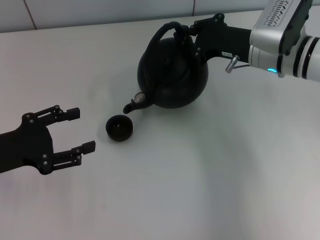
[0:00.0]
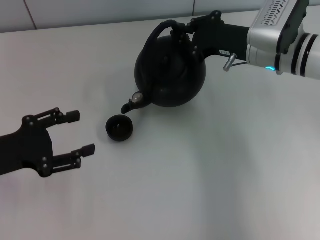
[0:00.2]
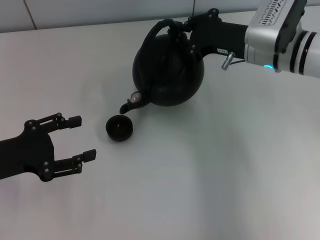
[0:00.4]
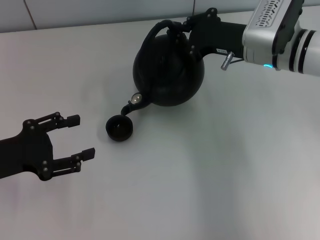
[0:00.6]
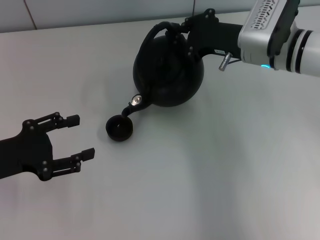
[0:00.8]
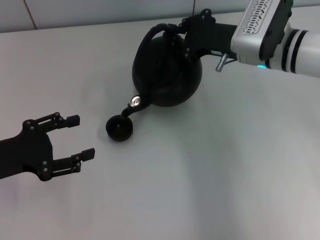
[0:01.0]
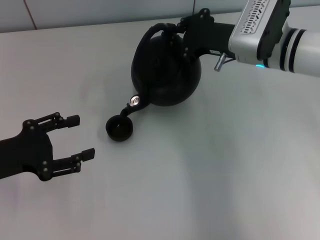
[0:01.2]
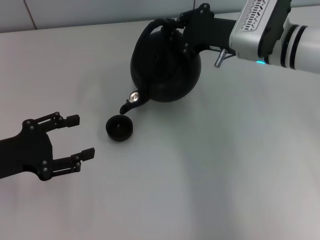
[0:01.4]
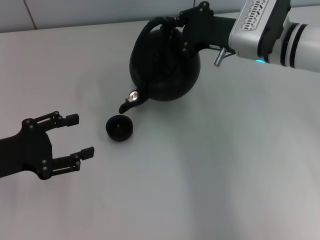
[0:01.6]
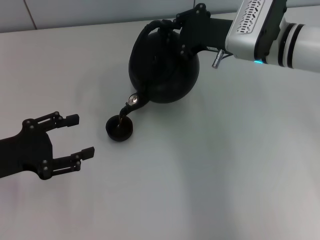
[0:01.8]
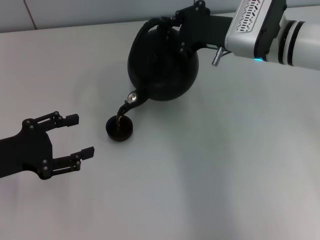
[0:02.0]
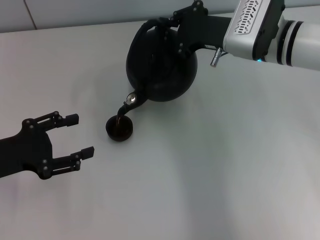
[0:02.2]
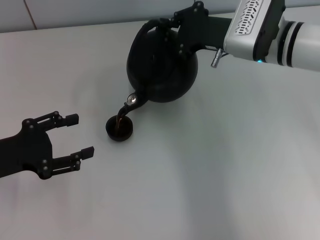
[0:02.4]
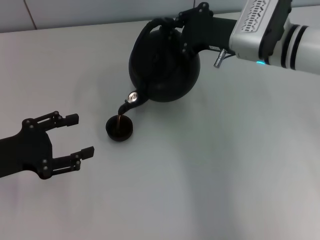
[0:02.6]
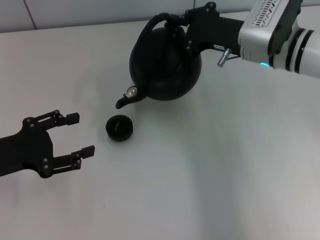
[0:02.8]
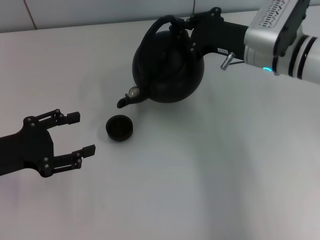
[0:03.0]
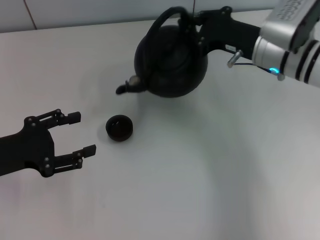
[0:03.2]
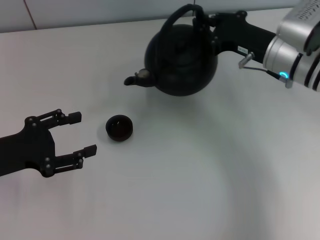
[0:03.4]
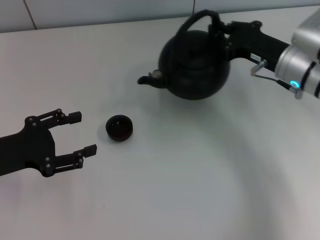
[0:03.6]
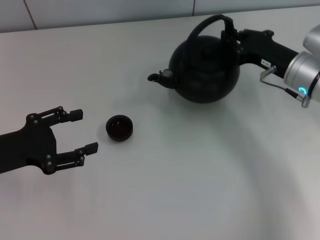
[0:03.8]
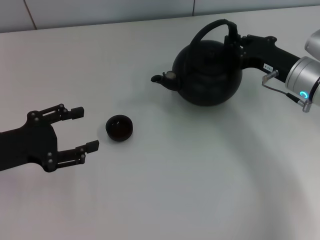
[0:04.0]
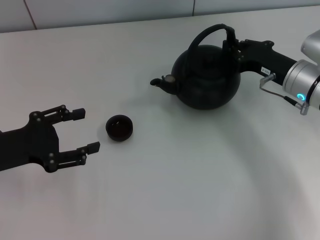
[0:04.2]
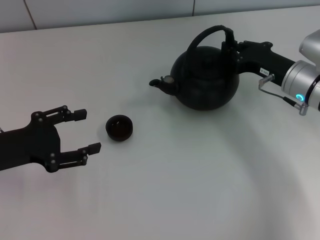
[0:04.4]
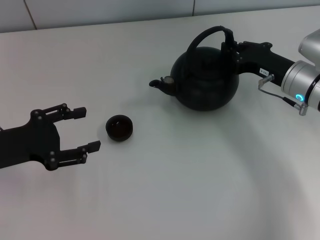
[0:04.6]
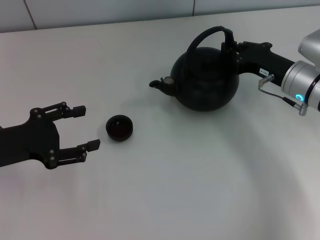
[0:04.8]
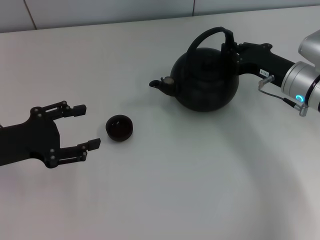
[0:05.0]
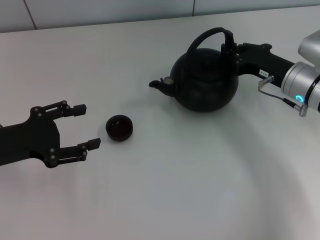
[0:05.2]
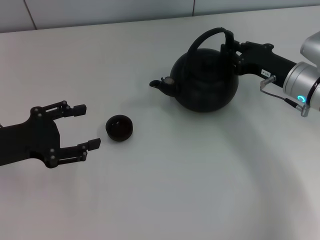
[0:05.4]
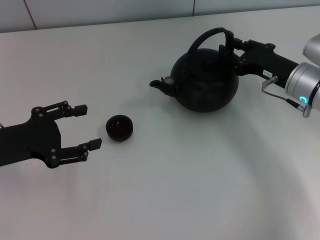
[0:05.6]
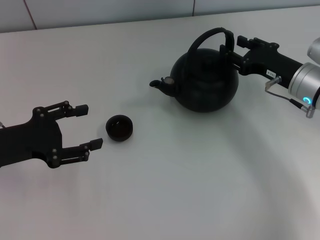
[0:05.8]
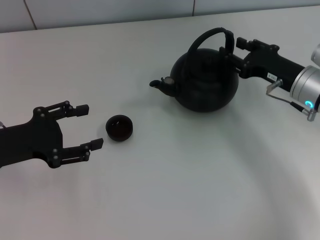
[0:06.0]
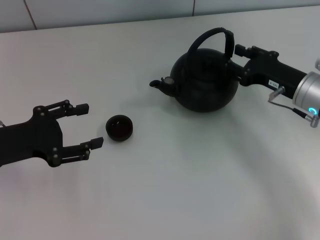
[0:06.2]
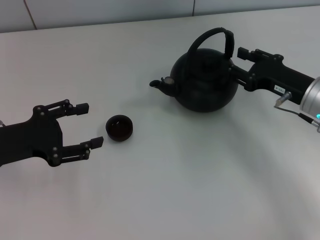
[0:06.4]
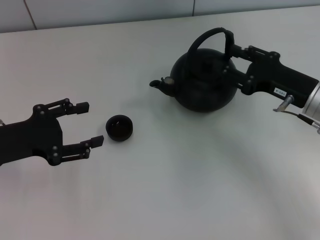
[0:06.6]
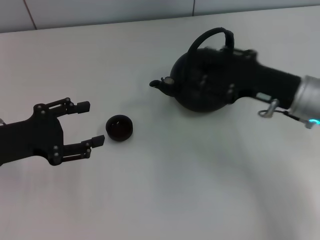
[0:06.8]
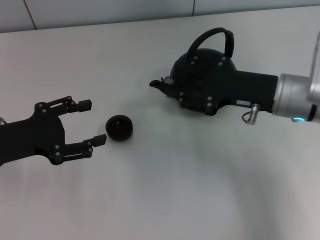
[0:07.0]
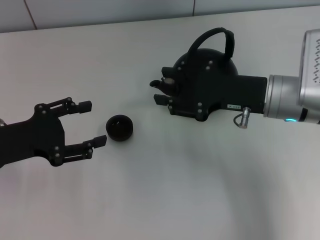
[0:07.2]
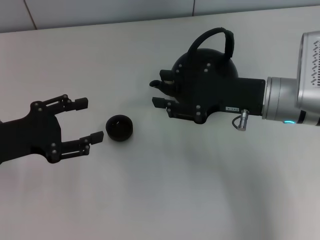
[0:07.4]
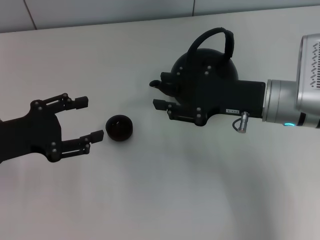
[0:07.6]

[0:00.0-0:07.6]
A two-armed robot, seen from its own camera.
Task of the whole recording: Grasp the handle of the teapot with one hand and pour tea into the teacup.
Step, 0:02.8 to 0:06.8: Put down the teapot with the right gripper.
0:00.0 to 0:03.0: The grippers make only small movements.
0:03.0 to 0:04.6: The right gripper goes about 10 cm to the right and downward.
0:04.6 to 0:06.0: The right gripper opens up.
0:06.0 to 0:07.6: The right gripper moves to the left, some 5 cm.
